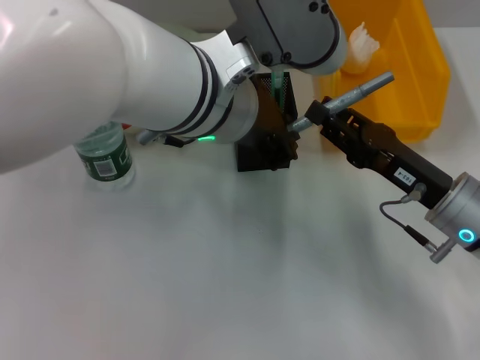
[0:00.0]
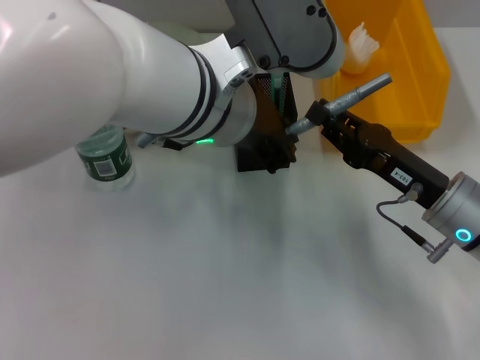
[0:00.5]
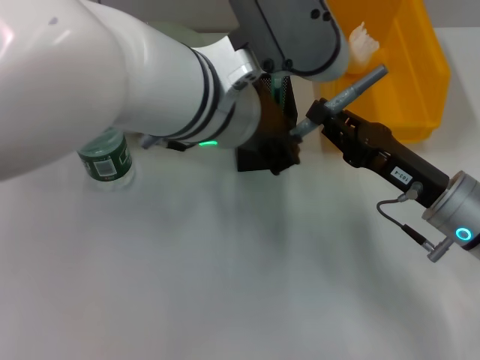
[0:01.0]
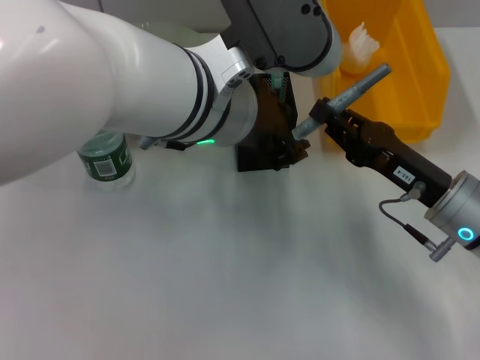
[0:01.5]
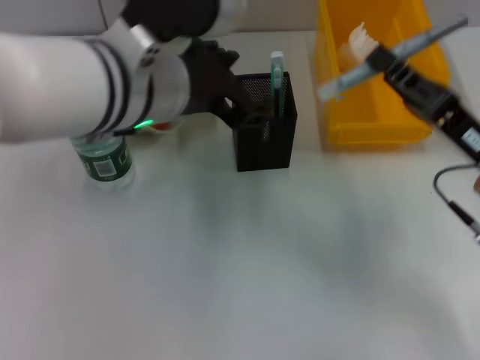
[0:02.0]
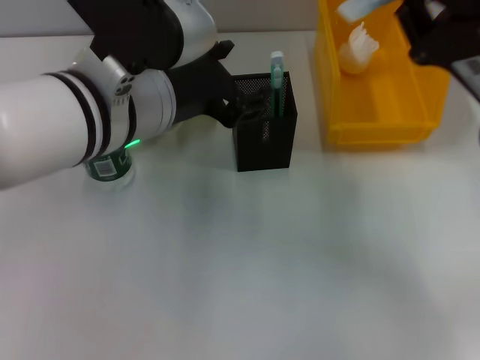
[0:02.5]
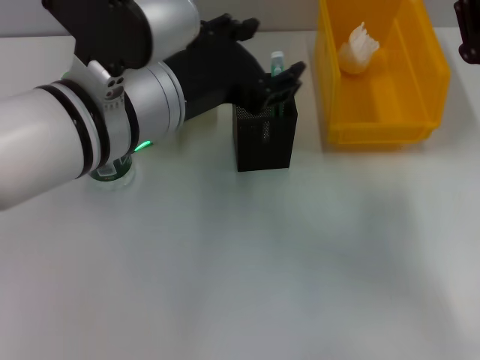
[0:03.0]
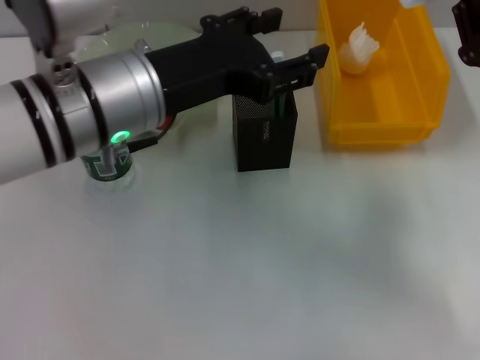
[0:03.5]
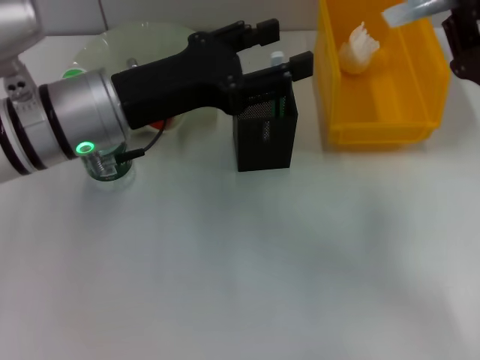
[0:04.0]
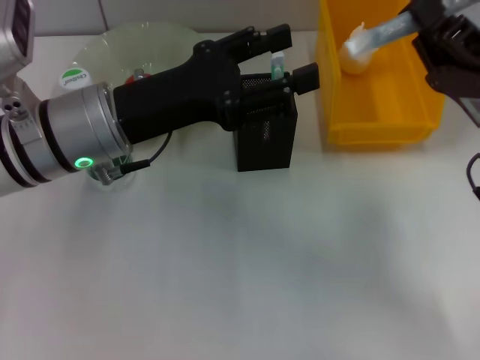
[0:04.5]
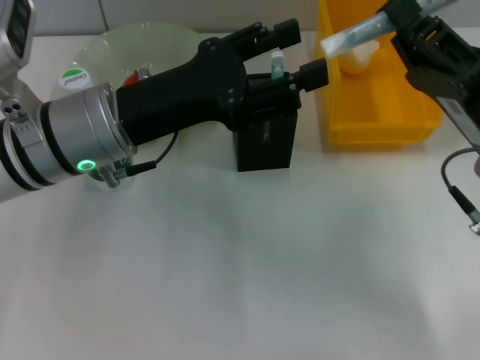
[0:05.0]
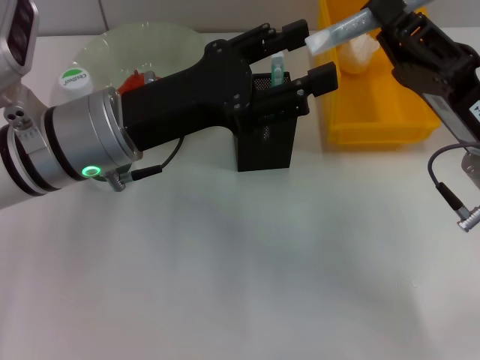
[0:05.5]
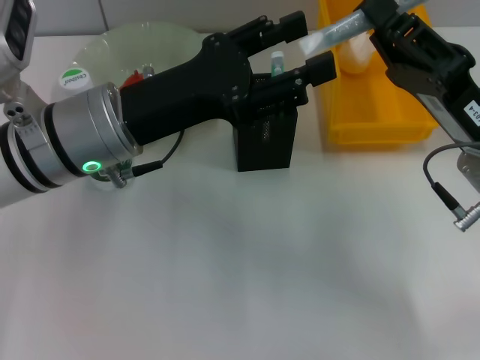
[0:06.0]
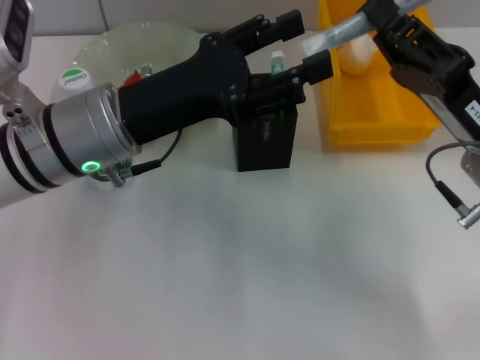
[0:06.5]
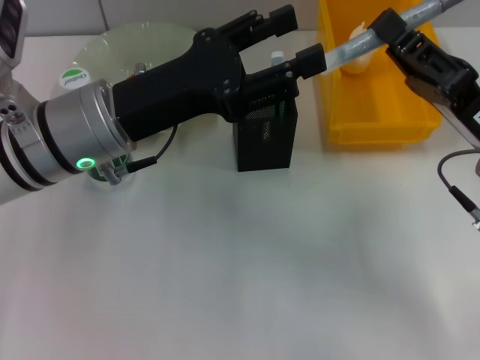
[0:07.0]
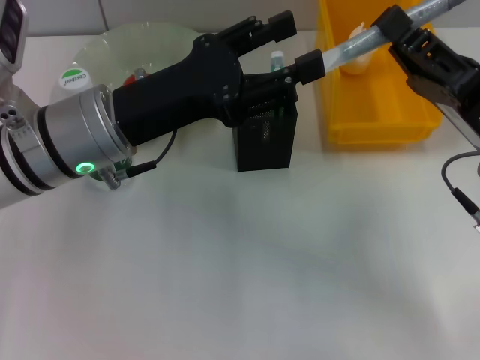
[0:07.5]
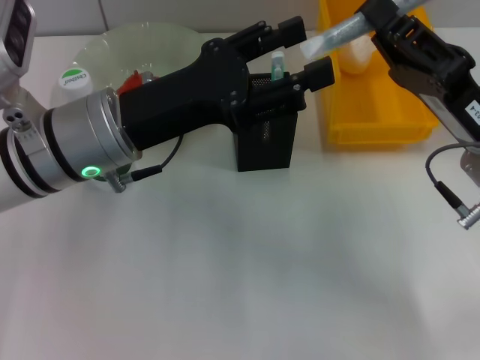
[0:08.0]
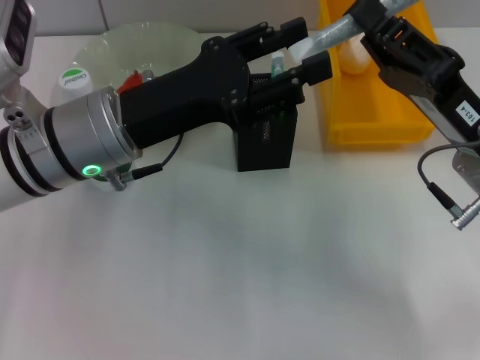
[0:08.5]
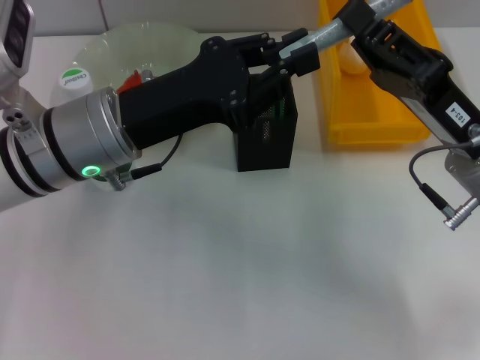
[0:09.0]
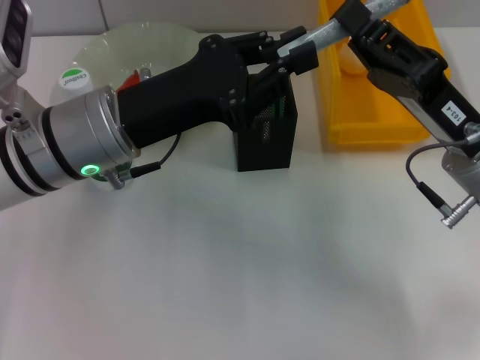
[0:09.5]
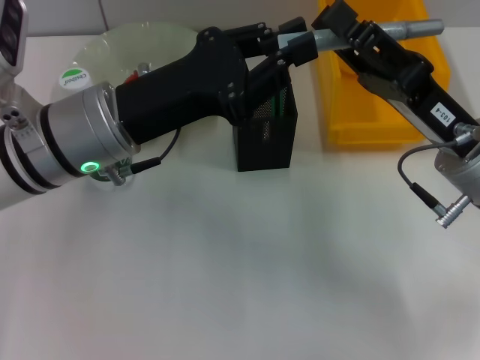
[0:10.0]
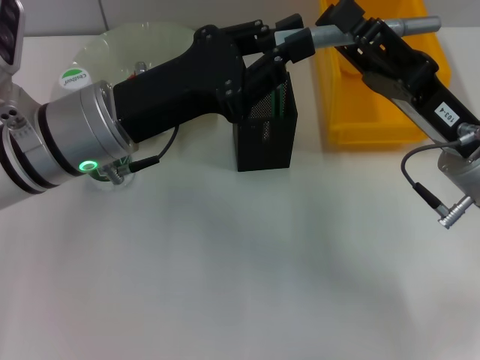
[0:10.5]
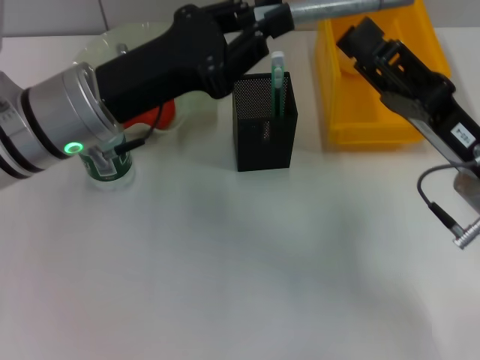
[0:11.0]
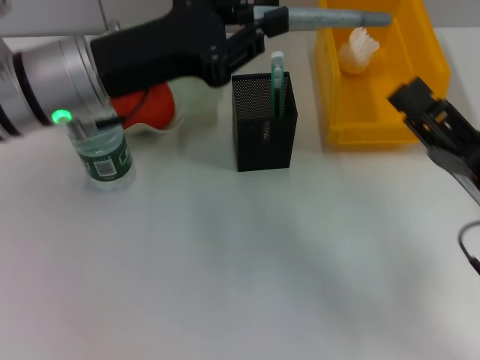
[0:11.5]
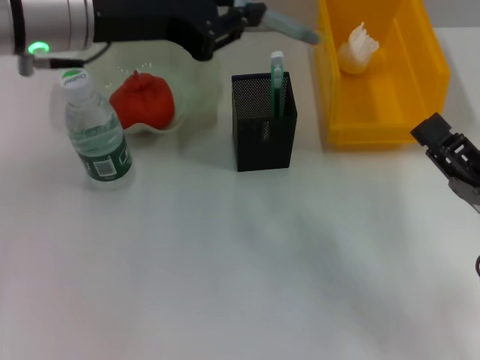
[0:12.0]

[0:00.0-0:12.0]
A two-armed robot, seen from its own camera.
Step, 0:02.0 to 0:10.0: Pass the gray glue from the right hand to the left hand.
0:00.0 to 0:02.0: The left gripper goes about 5 cm to the left, and opens its fingers, while the right gripper closes up.
0:02.0 to 0:04.0: The left gripper goes about 10 cm to the left and downward.
0:04.0 to 0:08.0: The grippers stay close to where they were, moving slightly.
0:08.0 to 0:10.0: The left gripper closes up.
0:10.0 to 0:12.0: The left gripper moves upward, some 10 cm, while the right gripper heads backward, to the right and downward, covering about 10 cm.

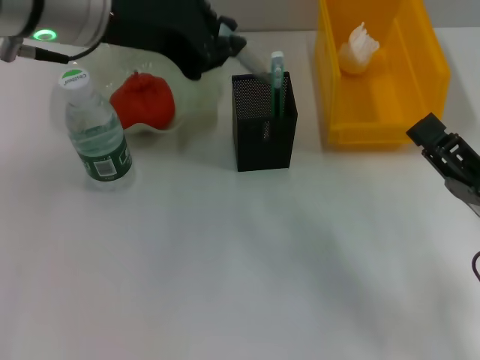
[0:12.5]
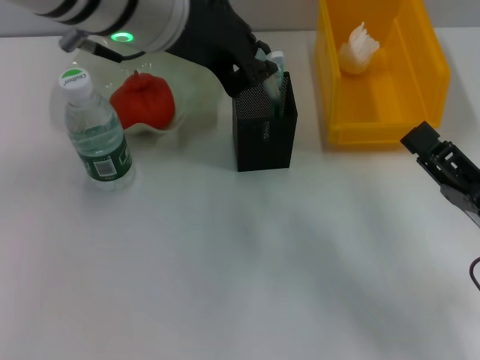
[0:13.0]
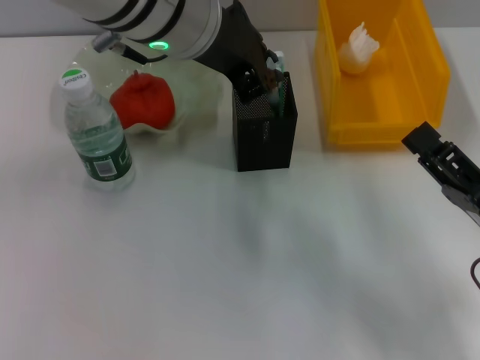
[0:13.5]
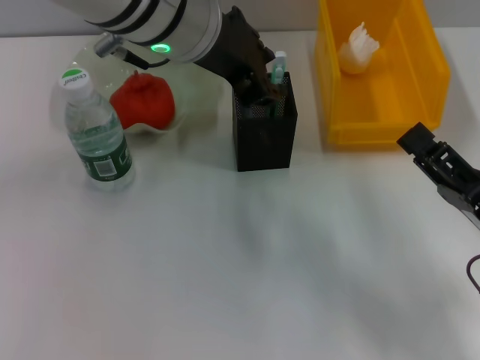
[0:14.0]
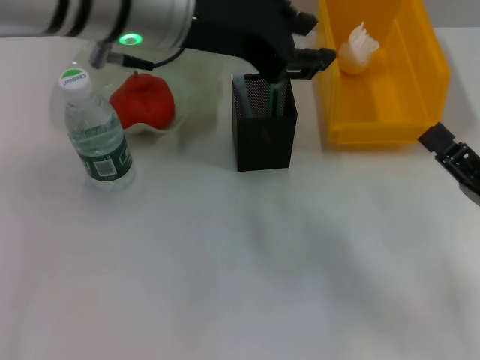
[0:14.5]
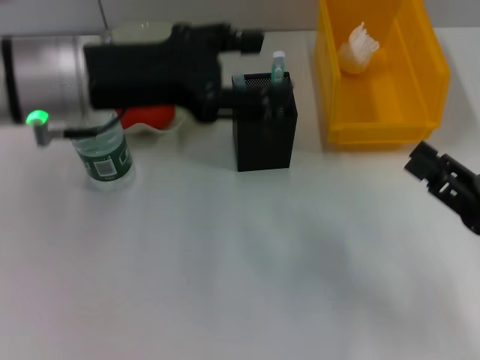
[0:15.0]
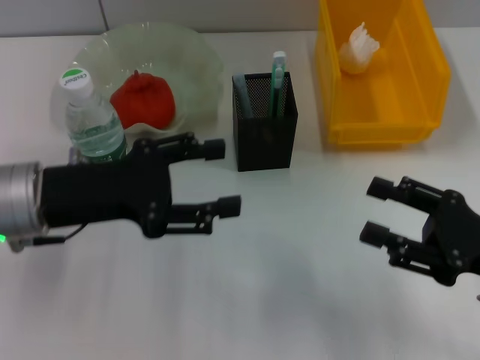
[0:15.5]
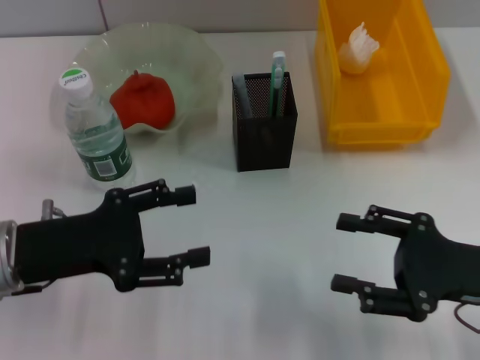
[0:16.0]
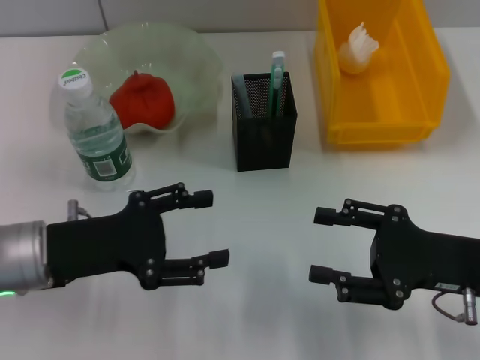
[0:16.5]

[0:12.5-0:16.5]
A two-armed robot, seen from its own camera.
0:12.5 to 0:14.5: The left gripper opens up.
0:14.5 to 0:16.5: The left gripper heads downward, to the left and backward, covering about 25 cm, and opens its fingers.

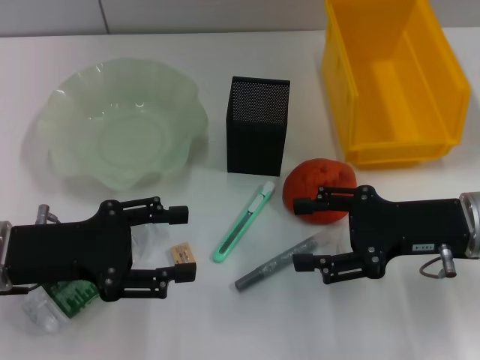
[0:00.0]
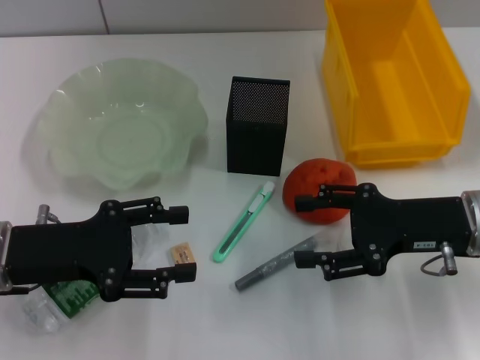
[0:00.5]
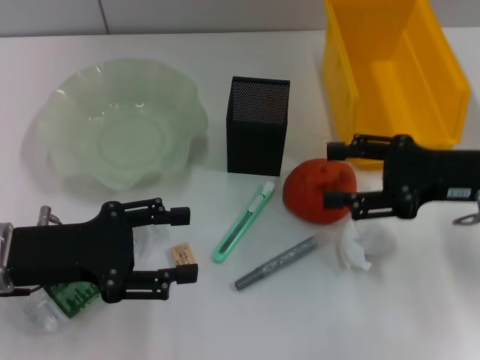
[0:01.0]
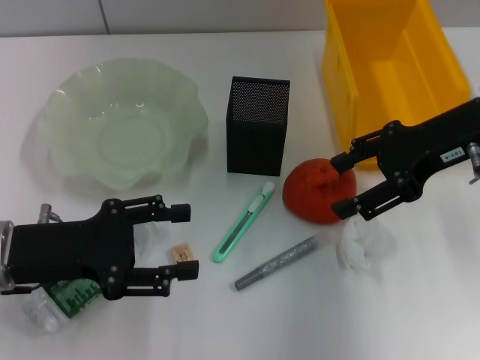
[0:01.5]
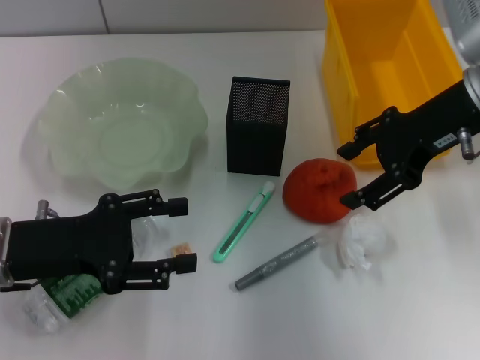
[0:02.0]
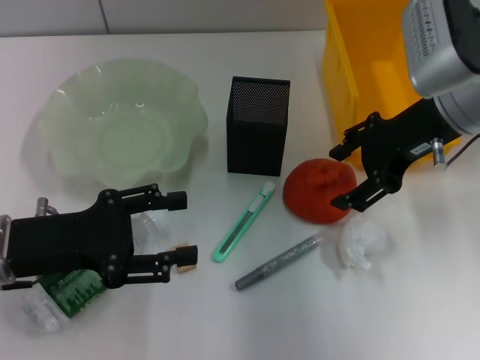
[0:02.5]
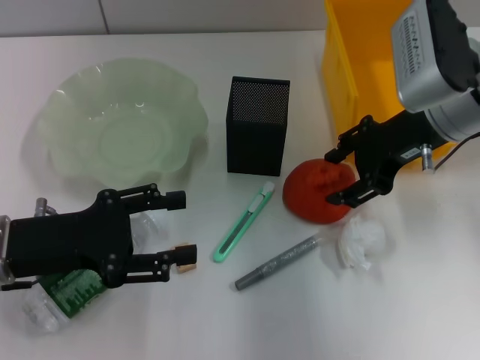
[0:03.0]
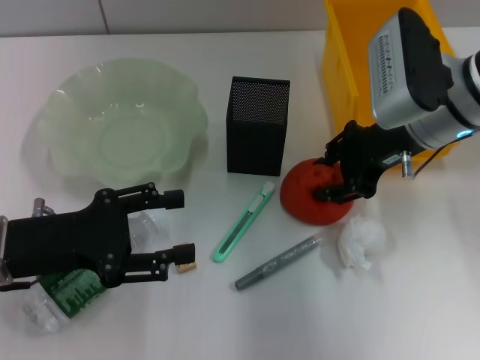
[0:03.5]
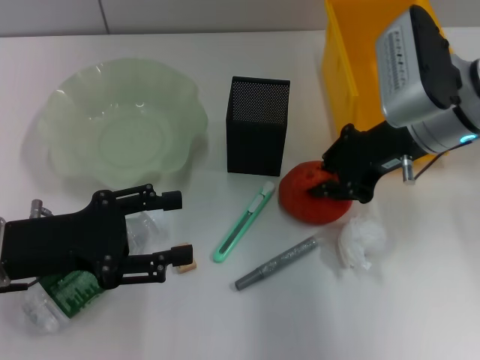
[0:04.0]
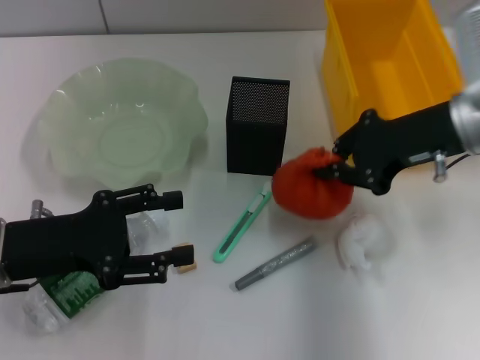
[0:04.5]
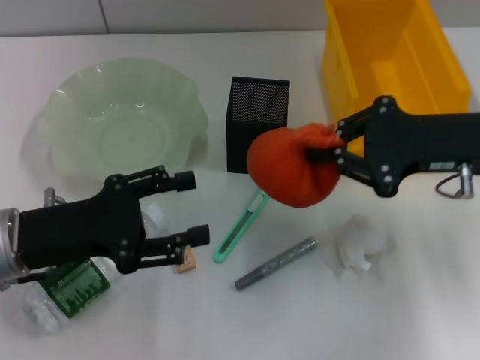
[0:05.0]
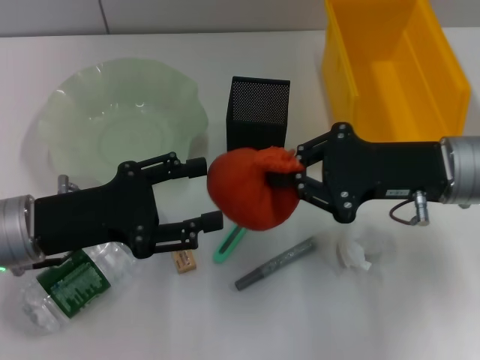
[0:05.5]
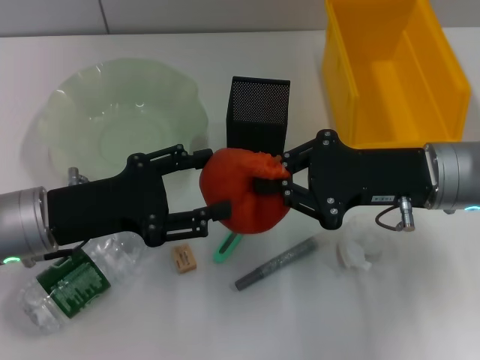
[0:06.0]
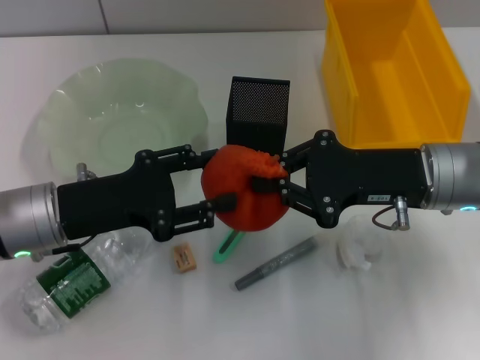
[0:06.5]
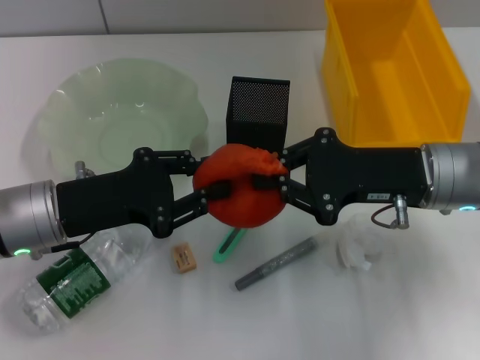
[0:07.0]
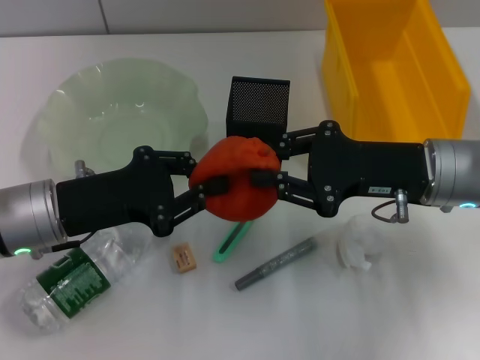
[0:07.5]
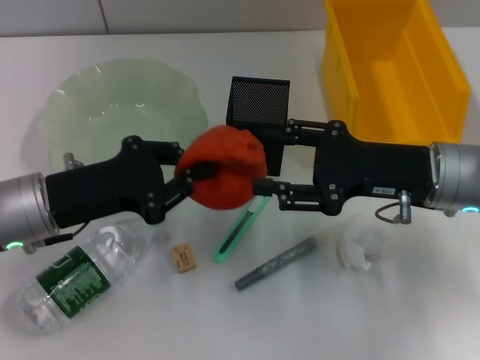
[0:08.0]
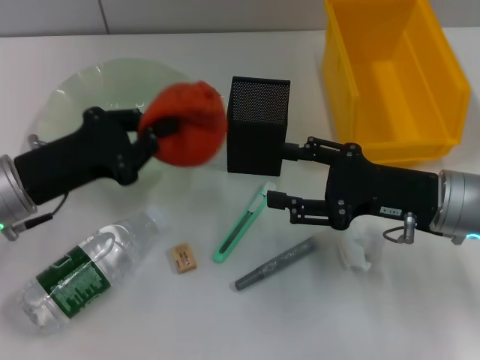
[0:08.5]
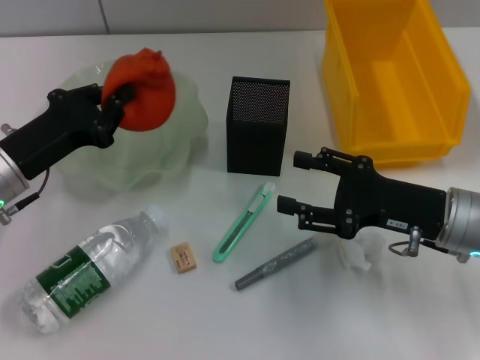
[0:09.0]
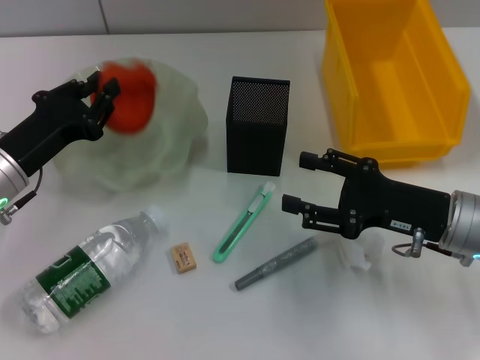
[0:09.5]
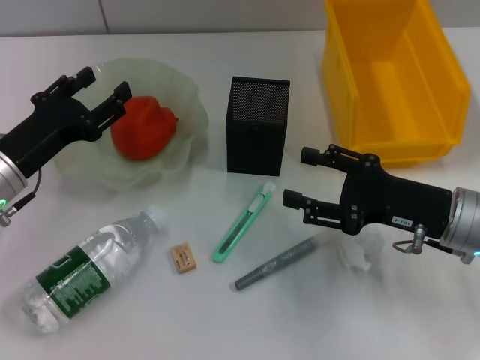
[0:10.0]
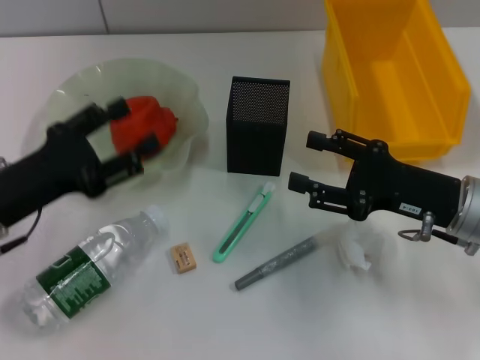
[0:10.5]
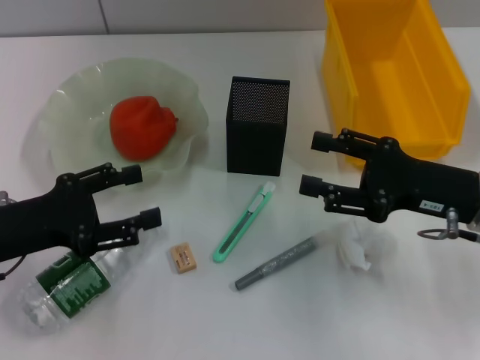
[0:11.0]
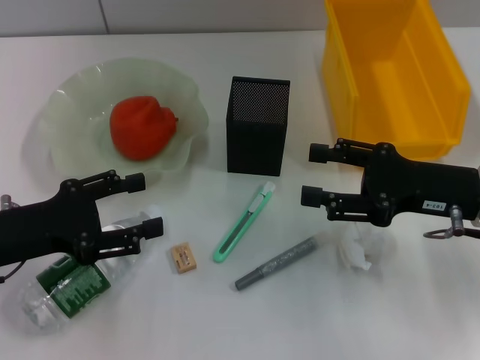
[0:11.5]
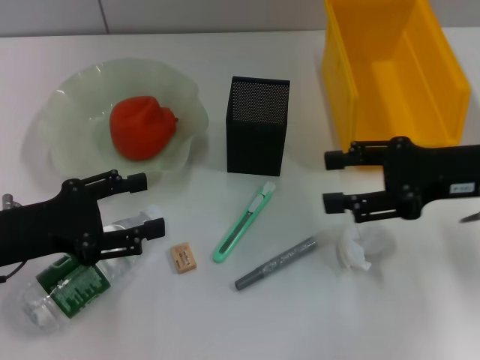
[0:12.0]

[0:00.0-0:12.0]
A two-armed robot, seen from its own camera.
Step, 0:00.0 to 0:03.5: Grab the orange with the right hand.
Step, 0:04.0 to 0:08.0: Pass the orange from the right hand to the left hand.
Step, 0:08.5 to 0:10.0: Place the orange into the fruit bowl with the left hand.
0:00.0 to 0:02.0: The right gripper moves upward and forward, approximately 15 cm.
0:02.0 to 0:04.0: The right gripper is displaced downward by about 5 cm, and closes up.
0:04.0 to 0:06.0: The right gripper travels backward by roughly 5 cm, and closes up.
0:06.0 to 0:08.0: The right gripper opens; the left gripper closes its fingers.
0:08.0 to 0:10.0: The left gripper shifts by approximately 5 cm, and opens up. The right gripper ends up some 5 cm from where it was.
0:10.0 to 0:12.0: The right gripper heads upward, covering about 10 cm. The left gripper is displaced backward by about 5 cm, and opens.
